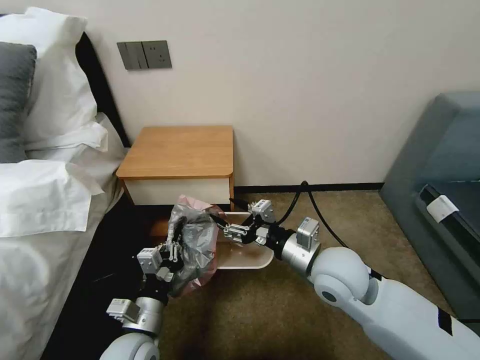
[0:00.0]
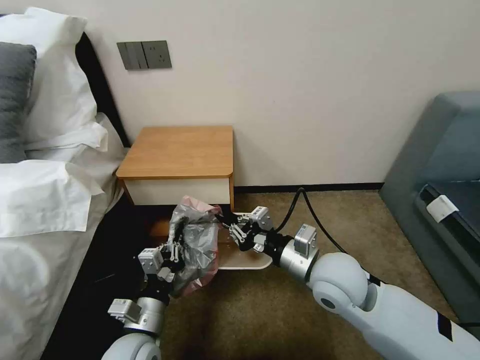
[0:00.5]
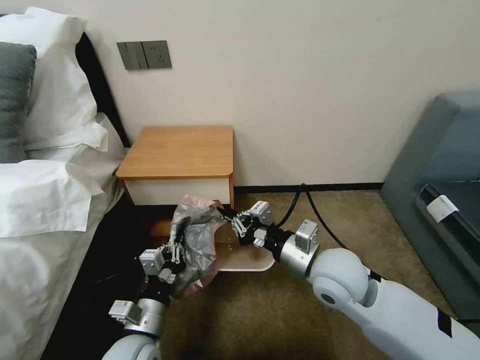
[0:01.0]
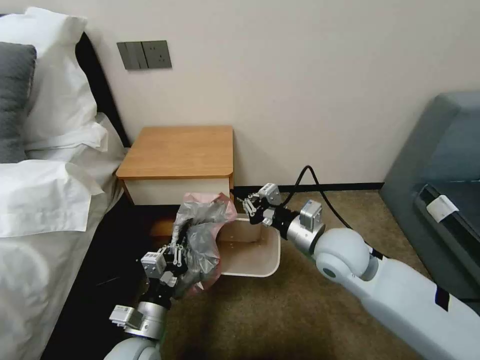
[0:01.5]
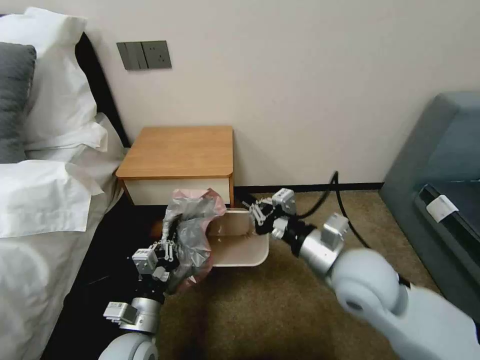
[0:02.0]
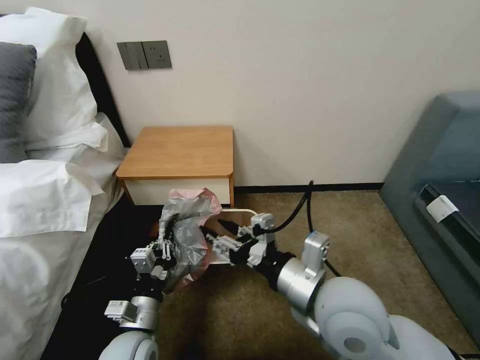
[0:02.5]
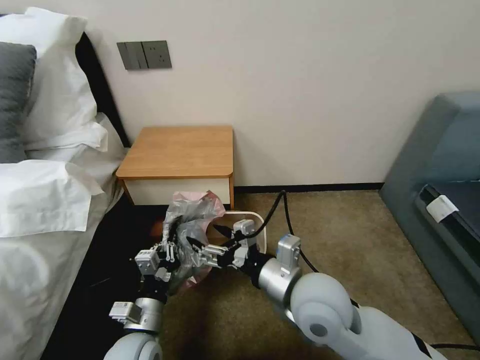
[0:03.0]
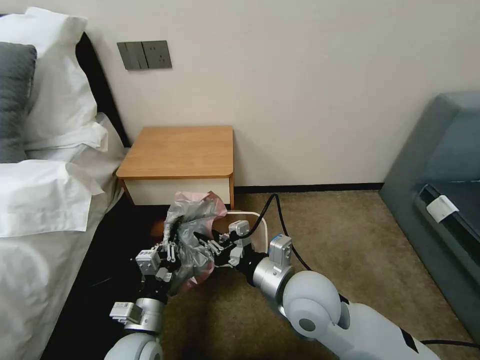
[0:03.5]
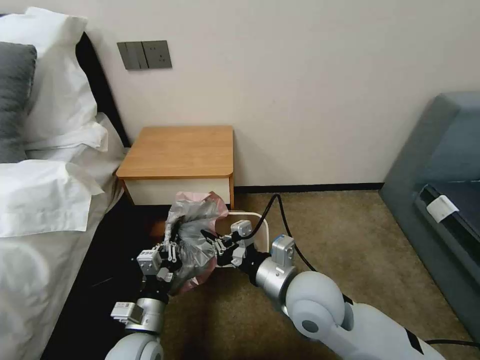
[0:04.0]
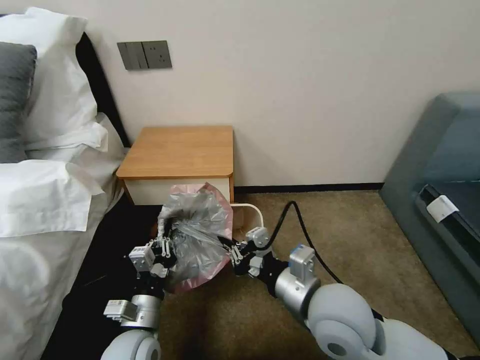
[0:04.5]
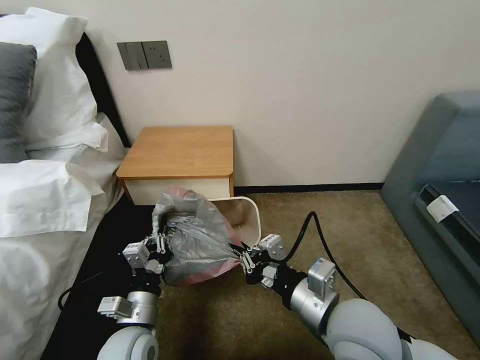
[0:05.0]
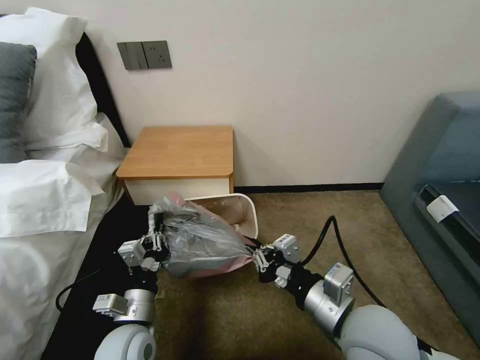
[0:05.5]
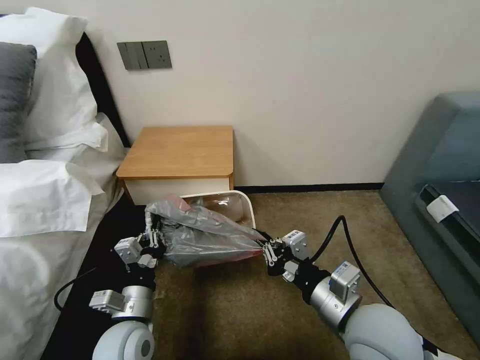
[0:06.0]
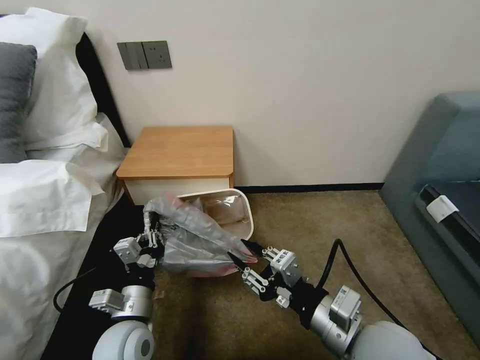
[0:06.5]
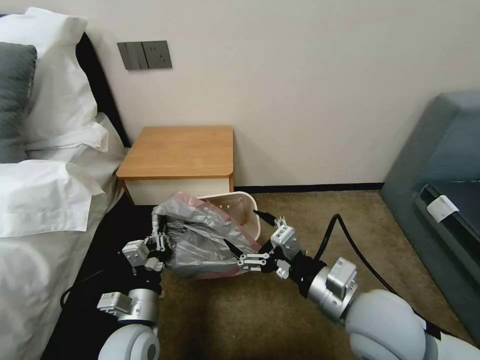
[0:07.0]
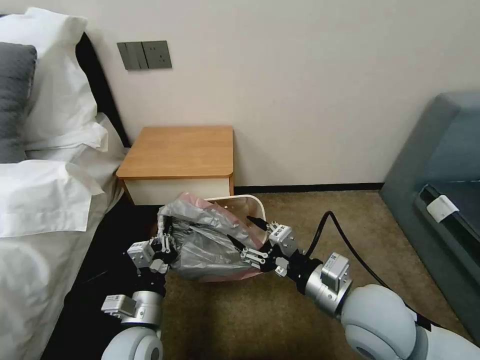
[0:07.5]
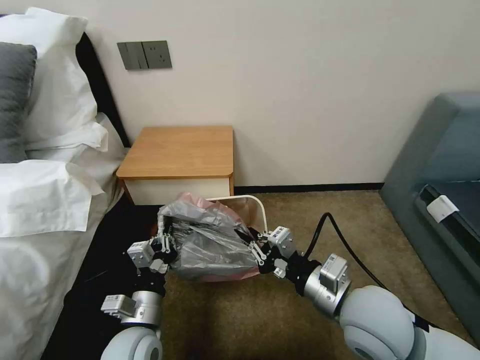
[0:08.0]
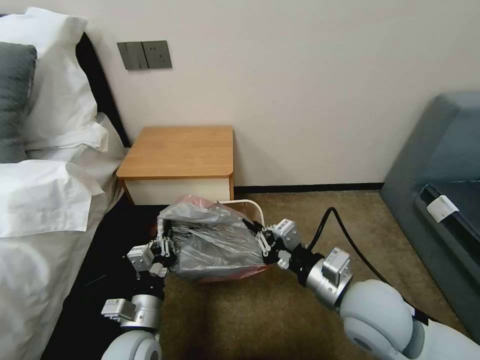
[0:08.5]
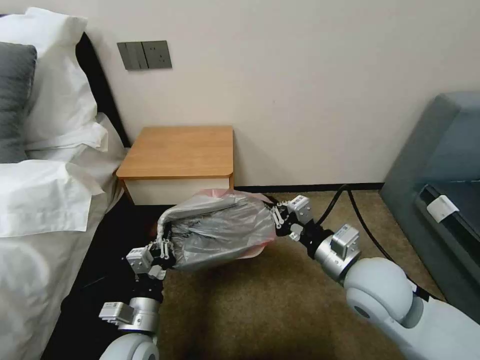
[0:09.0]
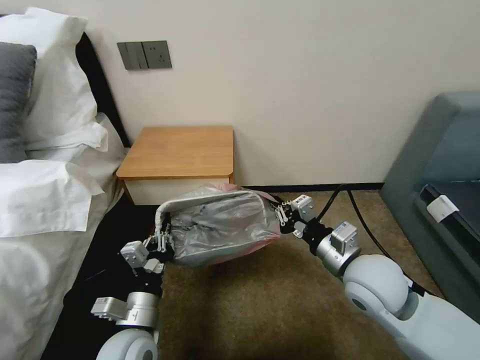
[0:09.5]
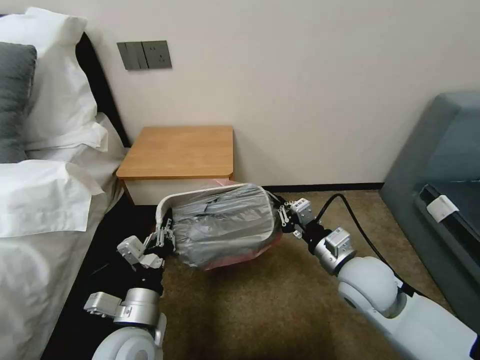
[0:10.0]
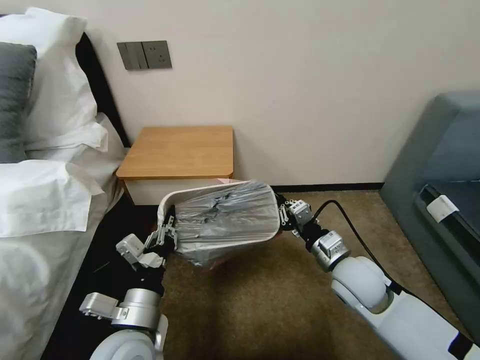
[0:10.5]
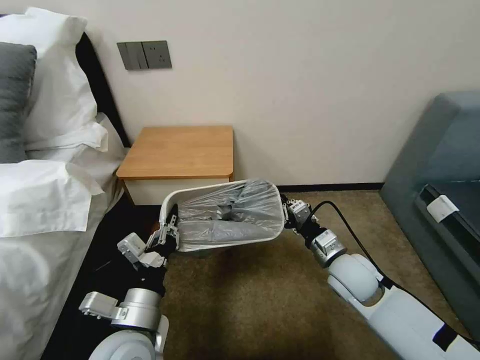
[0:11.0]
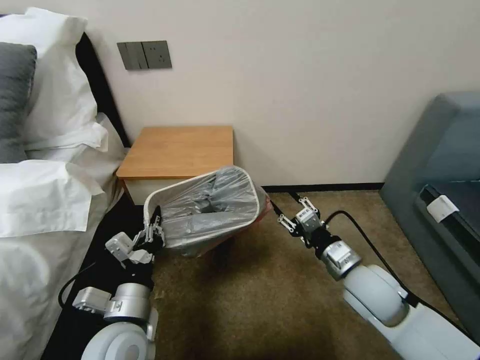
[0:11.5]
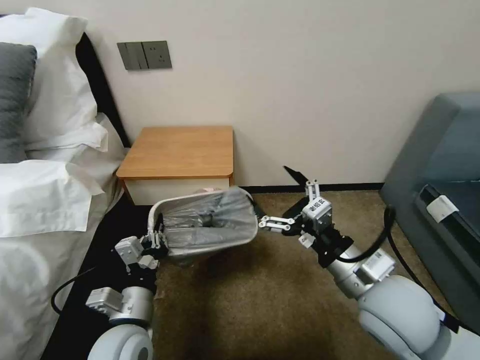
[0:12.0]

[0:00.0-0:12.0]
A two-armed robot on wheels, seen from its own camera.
Task of the whole recording: Pick up the garbage bag from the table and place it over the trash can.
0:00.0 to 0:02.0: The right gripper shifts by about 5 cm, and closes up.
0:02.0 to 0:04.0: The right gripper travels to the left by approximately 5 cm, and opens and closes again.
0:04.0 to 0:06.0: The right gripper shifts roughly 10 cm to the right and backward.
0:06.0 to 0:08.0: The right gripper opens and closes again.
0:08.0 to 0:10.0: The right gripper heads forward, covering approximately 5 cm.
0:10.0 to 0:12.0: The right gripper is displaced upward and backward by about 10 cm, and opens.

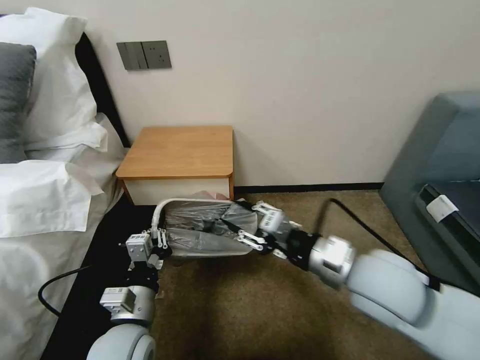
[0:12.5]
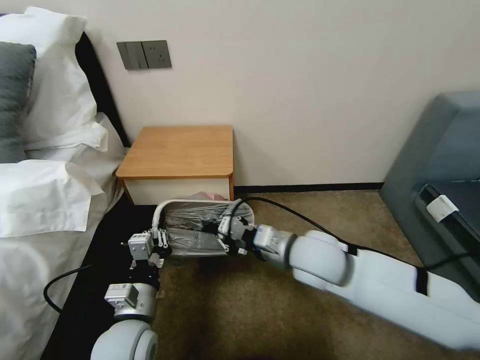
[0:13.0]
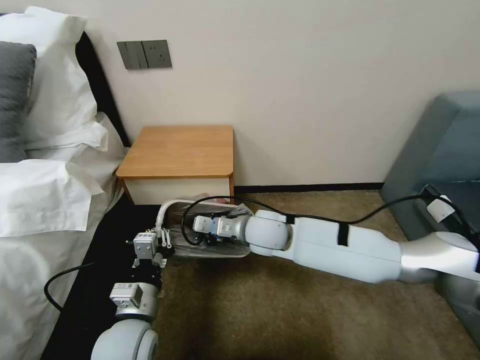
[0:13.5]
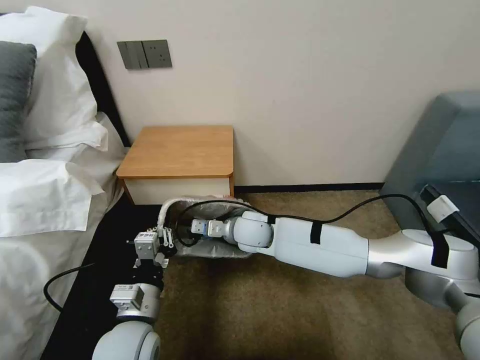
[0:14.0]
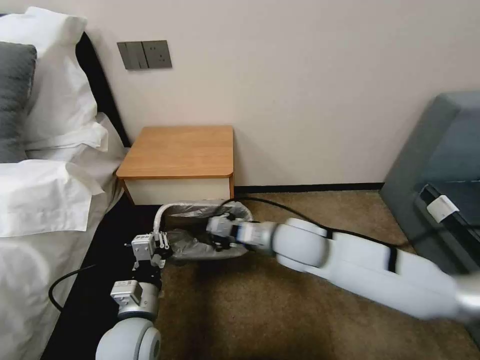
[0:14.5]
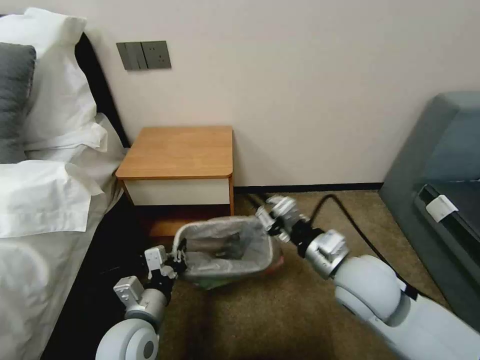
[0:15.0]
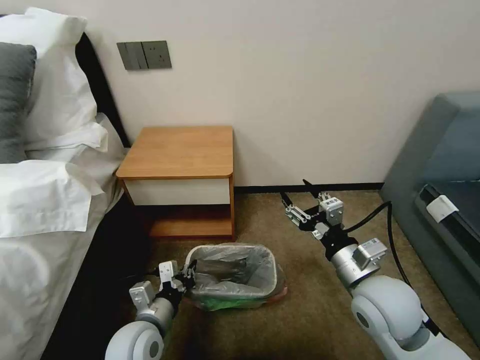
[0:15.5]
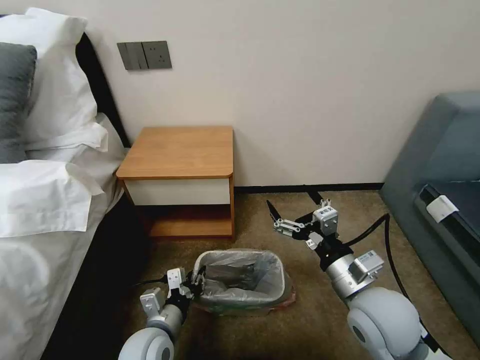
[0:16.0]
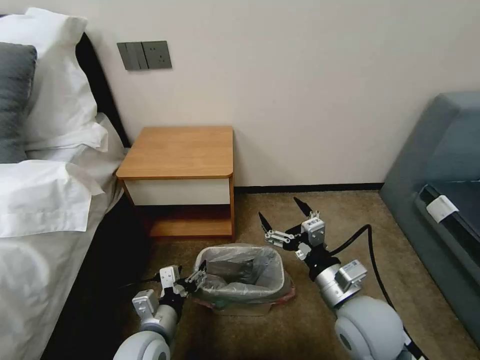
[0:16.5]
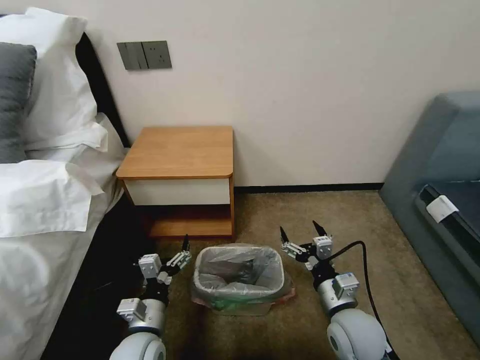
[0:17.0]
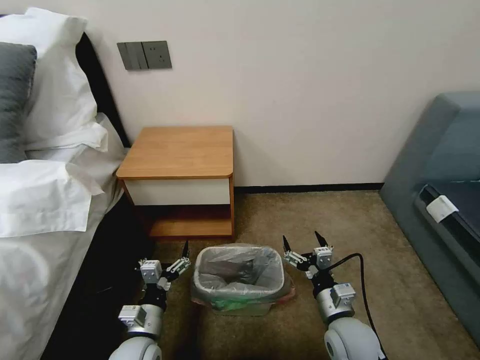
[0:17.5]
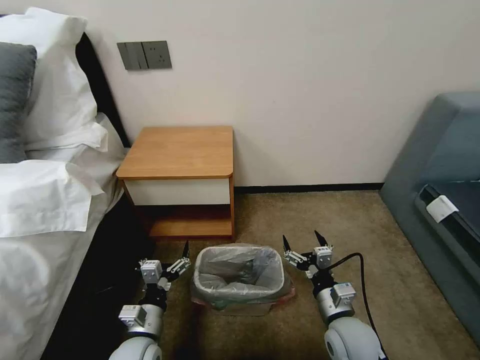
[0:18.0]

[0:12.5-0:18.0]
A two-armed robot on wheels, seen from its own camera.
Task of the whole recording: Pick up the garbage bag from the table and place it over the trash can.
0:12.5 to 0:14.5: The right gripper travels forward, to the left and downward by about 15 cm, and closes its fingers.
0:14.5 to 0:16.0: The right gripper goes about 15 cm backward and to the right, and opens, while the left gripper heads downward, covering about 5 cm.
0:16.0 to 0:18.0: The right gripper shifts approximately 15 cm downward; the left gripper ends up about 5 cm from where it was, and opens.

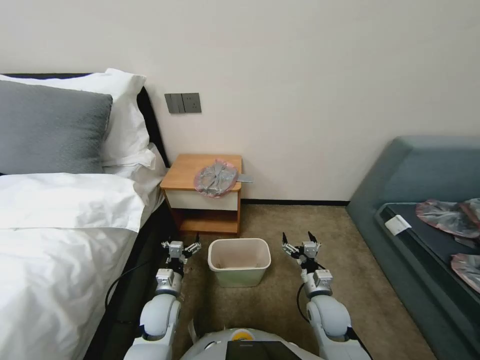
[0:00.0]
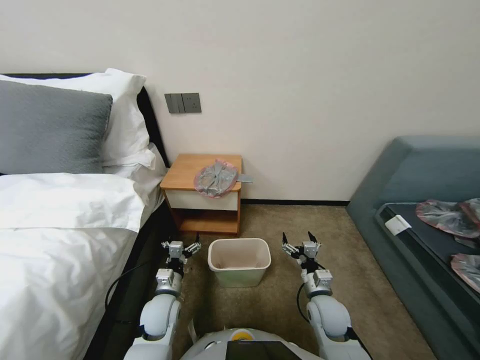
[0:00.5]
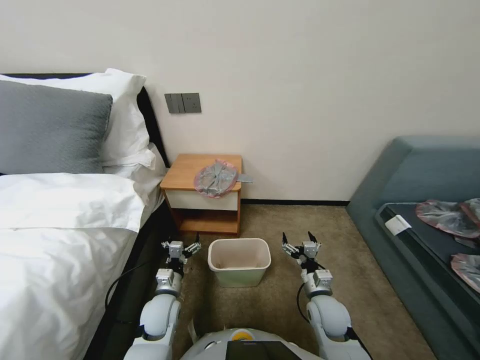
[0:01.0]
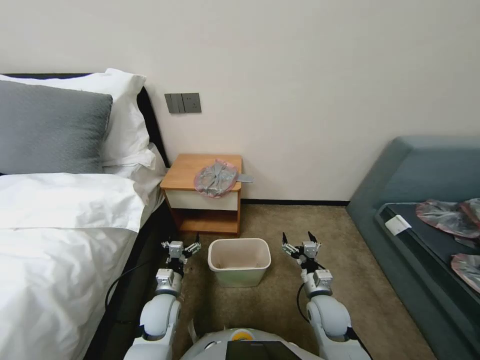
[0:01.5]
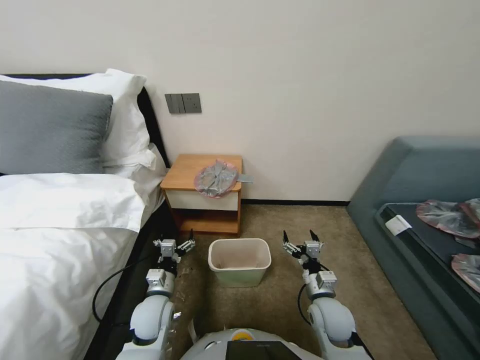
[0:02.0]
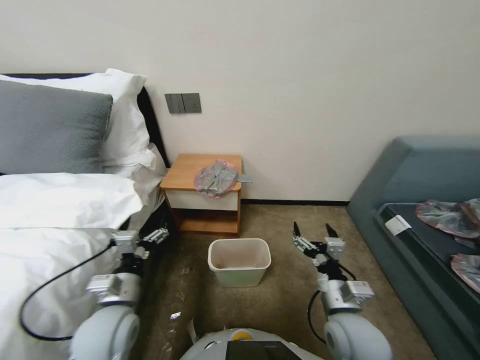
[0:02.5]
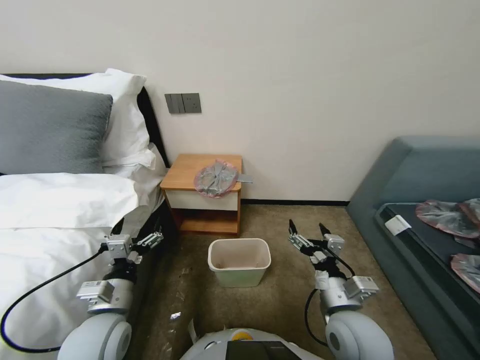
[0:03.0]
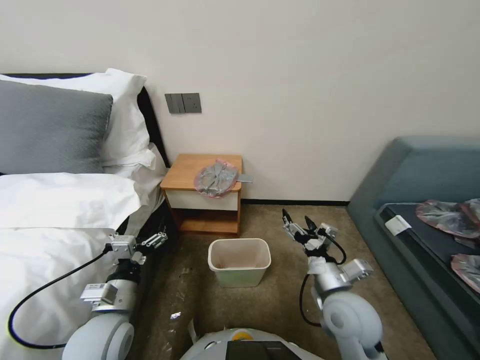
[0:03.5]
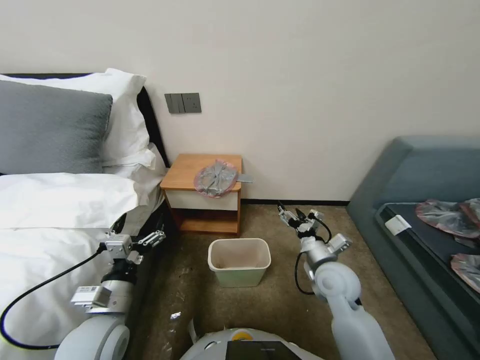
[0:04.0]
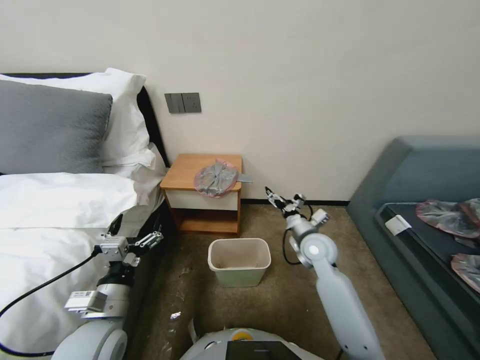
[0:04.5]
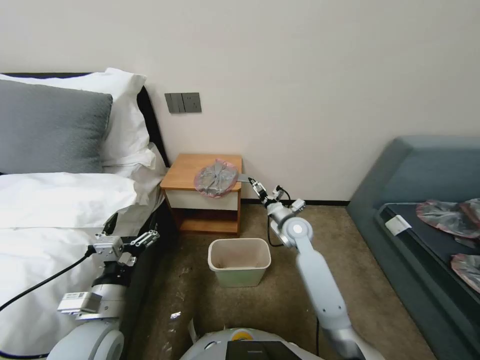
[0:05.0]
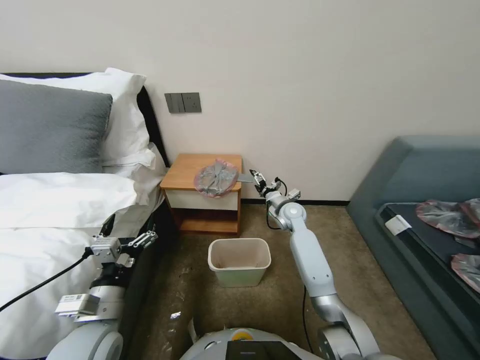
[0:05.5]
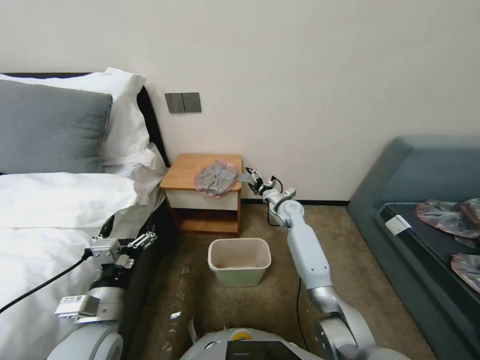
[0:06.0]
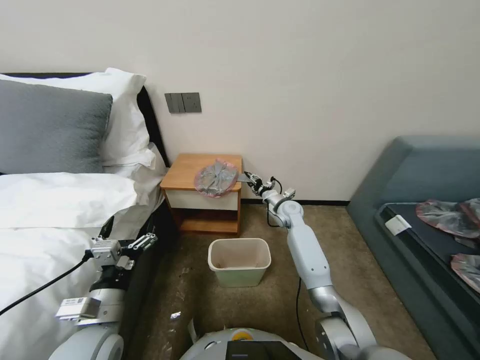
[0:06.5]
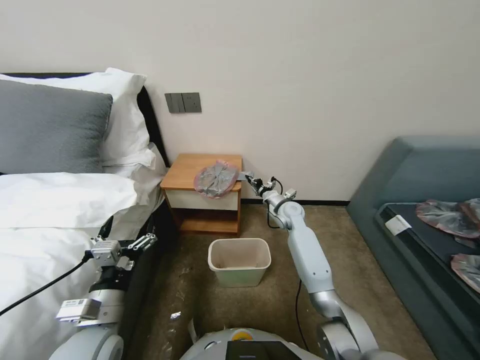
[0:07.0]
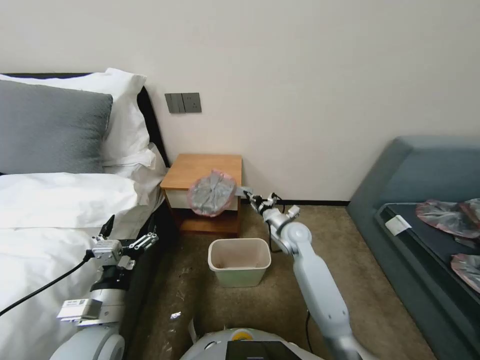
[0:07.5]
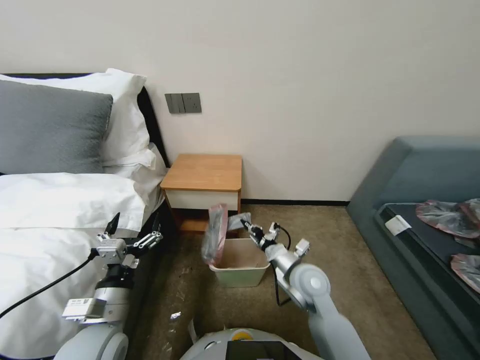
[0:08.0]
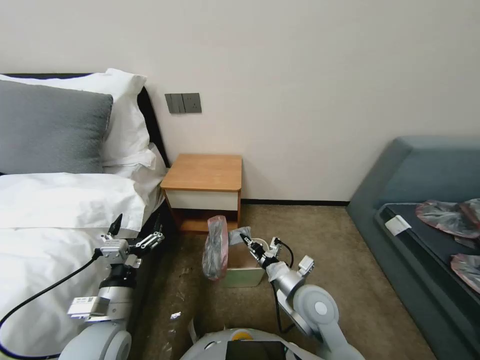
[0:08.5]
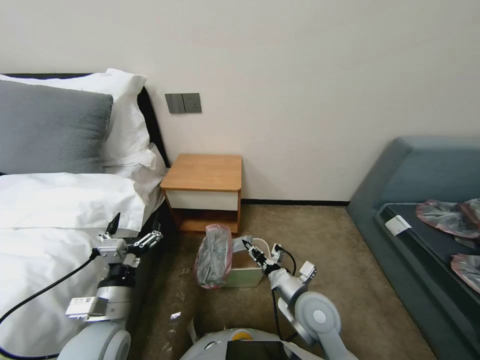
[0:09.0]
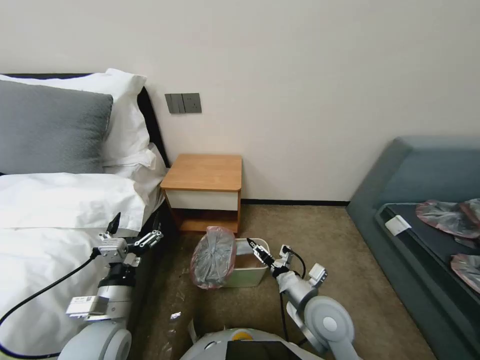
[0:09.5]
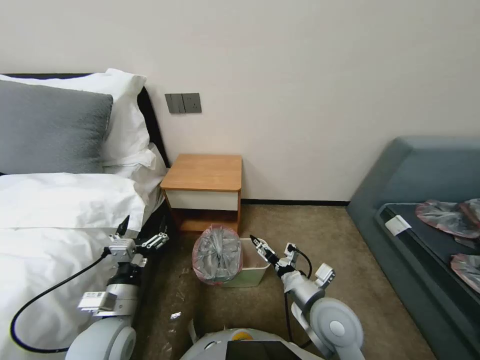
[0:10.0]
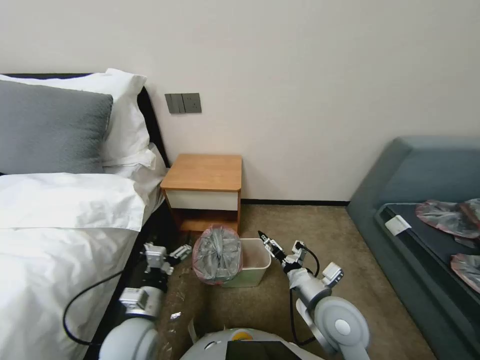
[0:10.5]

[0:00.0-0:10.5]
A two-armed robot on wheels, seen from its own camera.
Task of the whole recording: Pick up the garbage bag from the table and place it over the trash can.
0:02.0 to 0:04.0: The left gripper is displaced upward and backward by about 15 cm; the right gripper moves upward, some 10 cm.
0:04.0 to 0:06.5: The right gripper goes about 25 cm forward, and closes its fingers.
0:06.5 to 0:08.5: The right gripper is displaced backward by about 30 cm, and closes up.
0:08.5 to 0:10.5: The right gripper changes place by approximately 5 cm, and opens. The left gripper changes place by about 5 cm.
